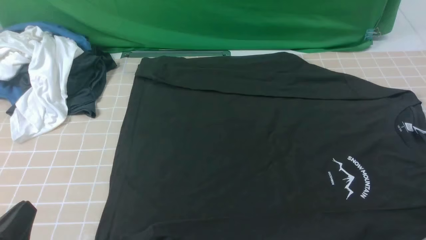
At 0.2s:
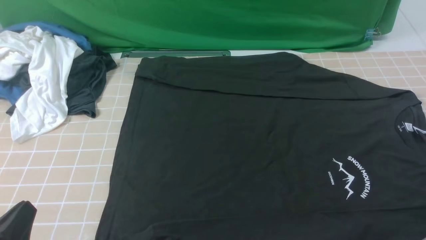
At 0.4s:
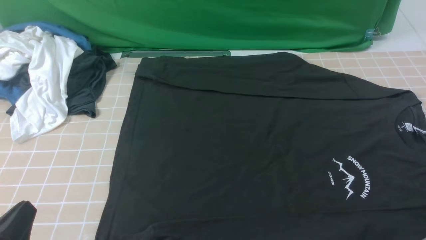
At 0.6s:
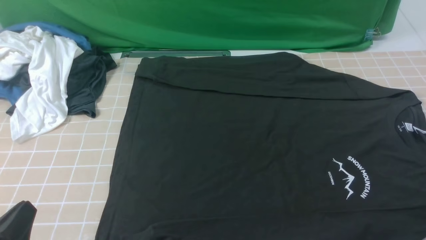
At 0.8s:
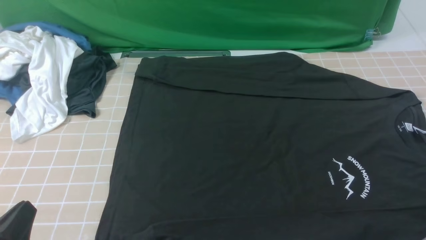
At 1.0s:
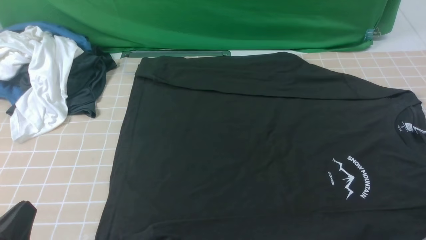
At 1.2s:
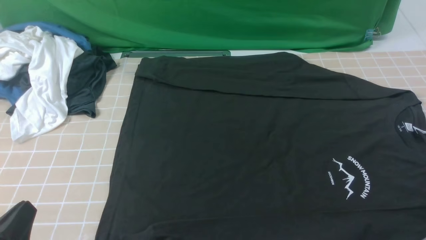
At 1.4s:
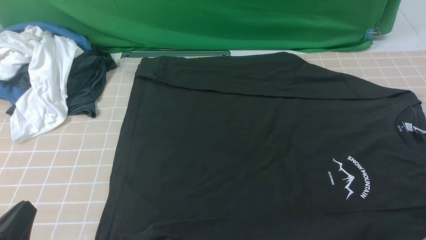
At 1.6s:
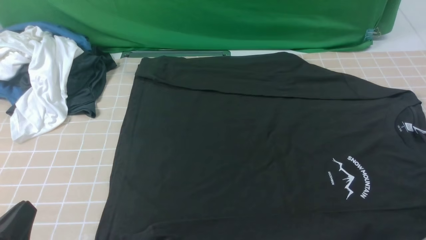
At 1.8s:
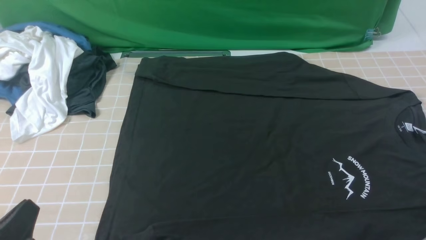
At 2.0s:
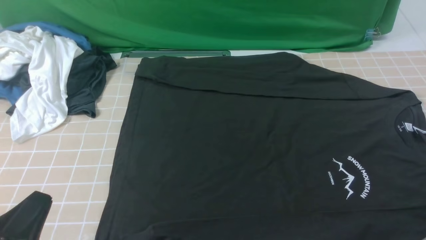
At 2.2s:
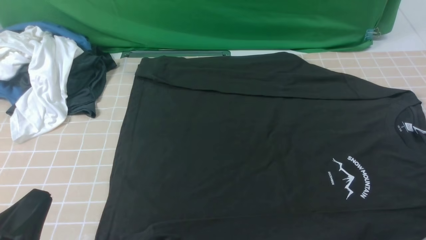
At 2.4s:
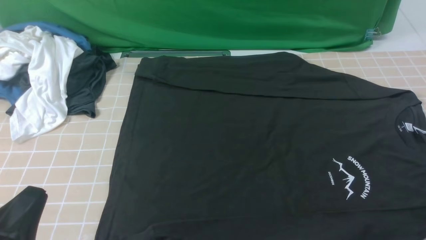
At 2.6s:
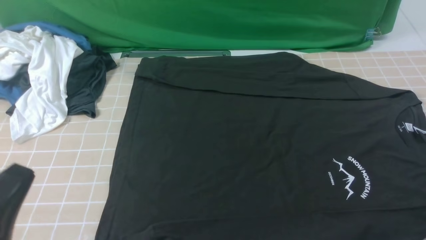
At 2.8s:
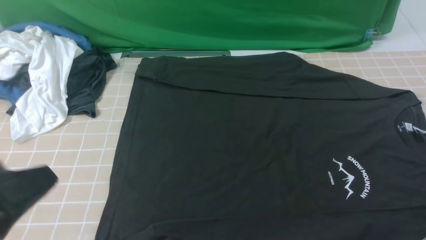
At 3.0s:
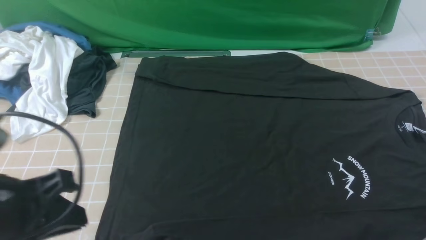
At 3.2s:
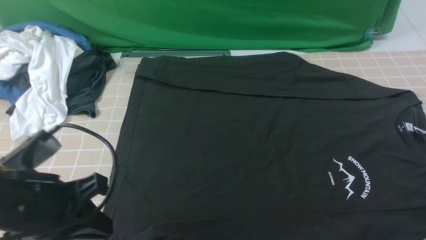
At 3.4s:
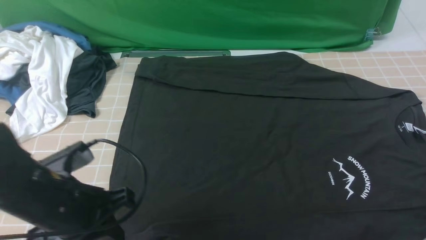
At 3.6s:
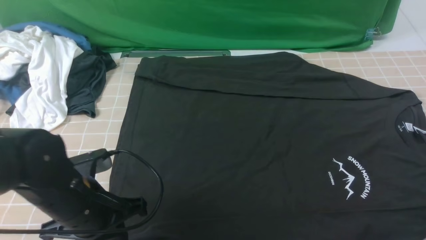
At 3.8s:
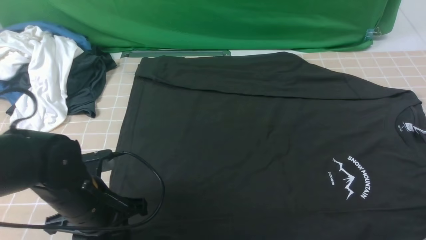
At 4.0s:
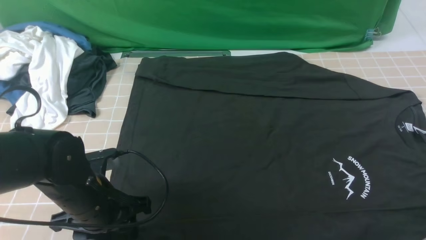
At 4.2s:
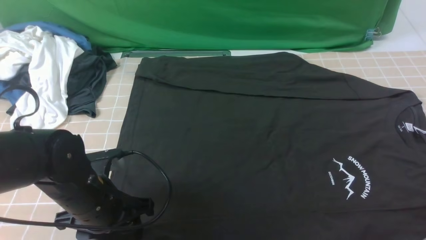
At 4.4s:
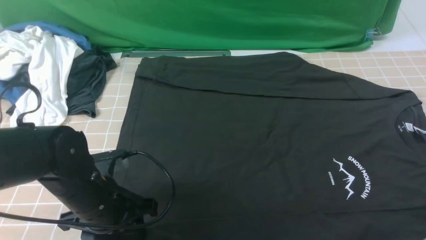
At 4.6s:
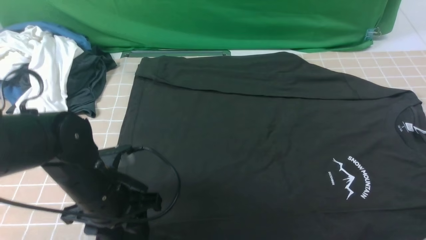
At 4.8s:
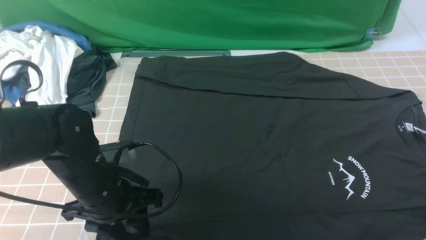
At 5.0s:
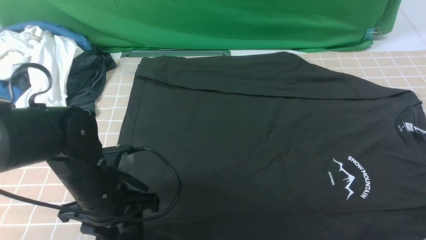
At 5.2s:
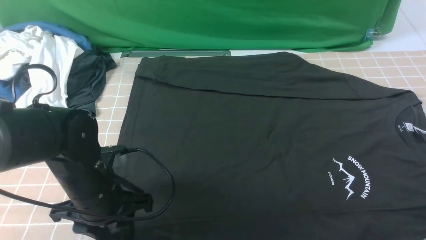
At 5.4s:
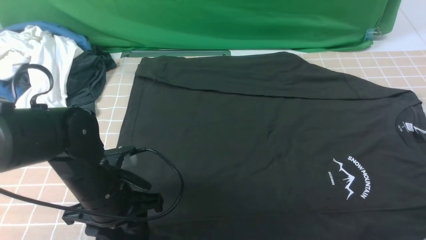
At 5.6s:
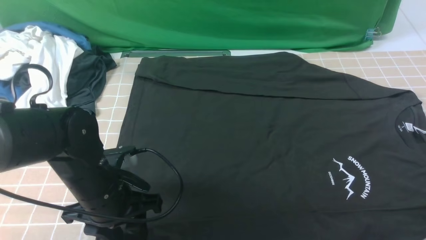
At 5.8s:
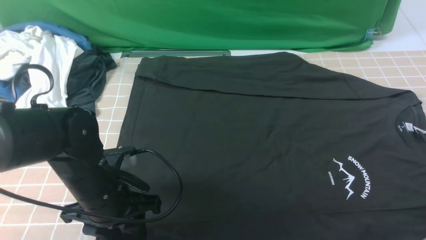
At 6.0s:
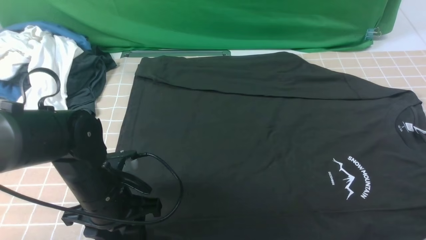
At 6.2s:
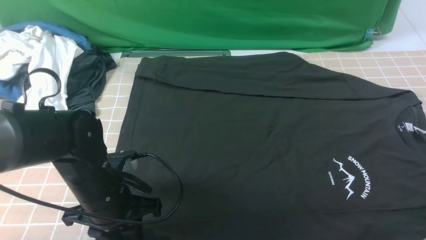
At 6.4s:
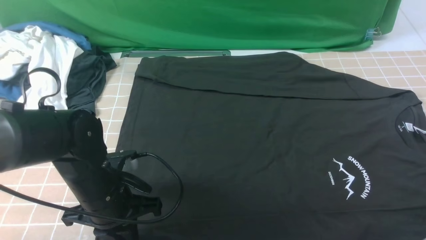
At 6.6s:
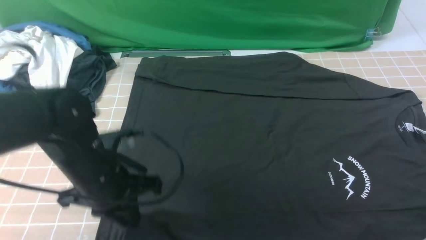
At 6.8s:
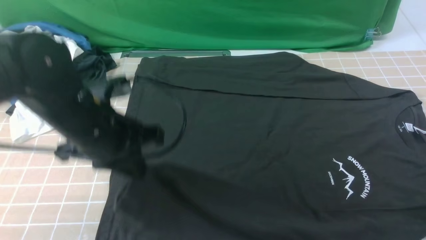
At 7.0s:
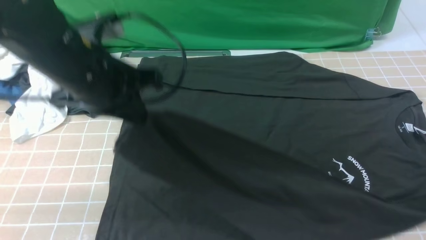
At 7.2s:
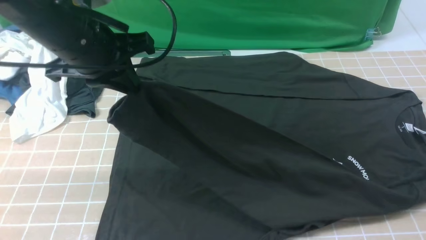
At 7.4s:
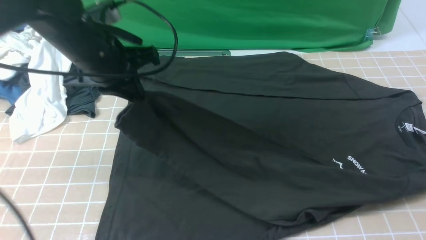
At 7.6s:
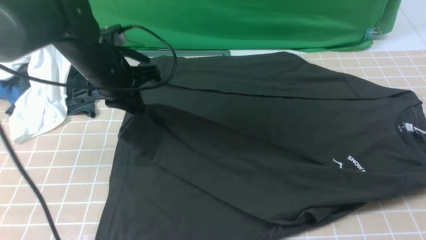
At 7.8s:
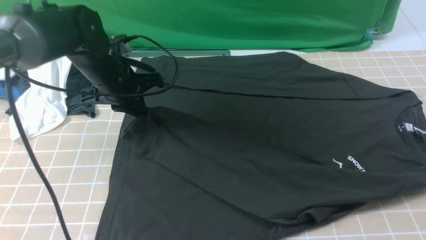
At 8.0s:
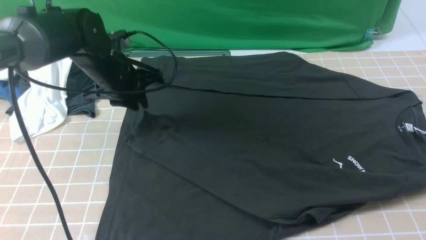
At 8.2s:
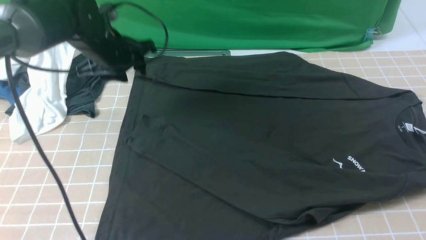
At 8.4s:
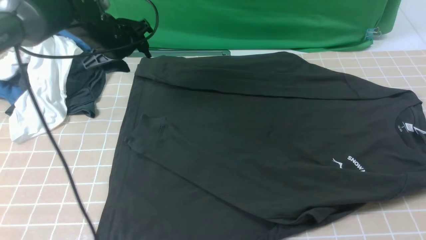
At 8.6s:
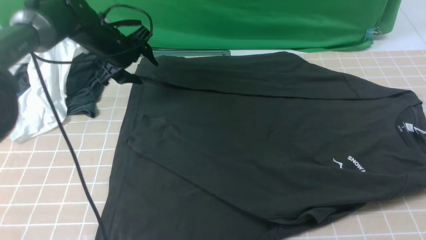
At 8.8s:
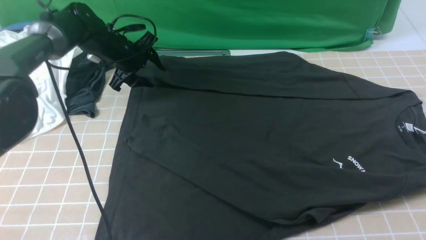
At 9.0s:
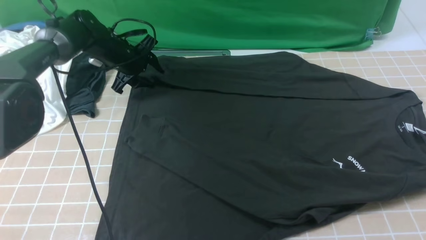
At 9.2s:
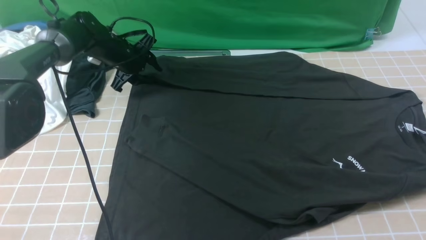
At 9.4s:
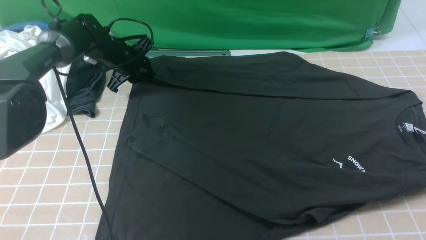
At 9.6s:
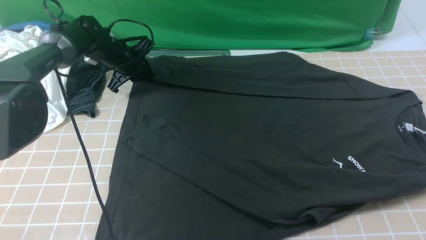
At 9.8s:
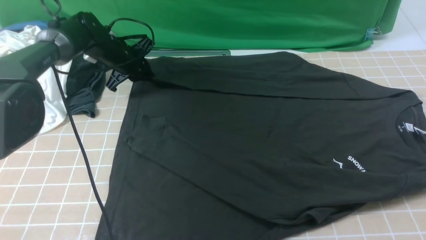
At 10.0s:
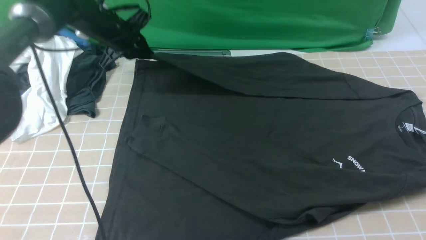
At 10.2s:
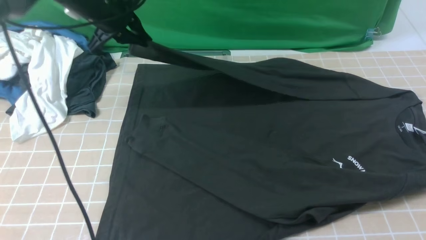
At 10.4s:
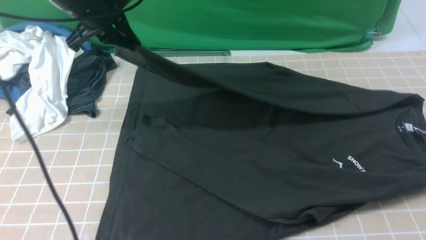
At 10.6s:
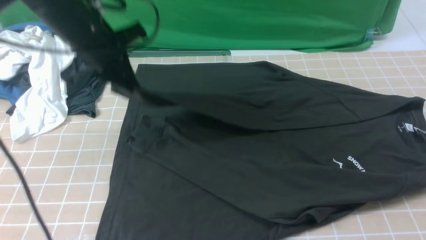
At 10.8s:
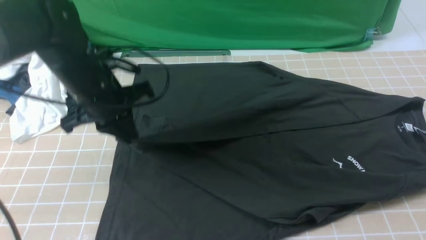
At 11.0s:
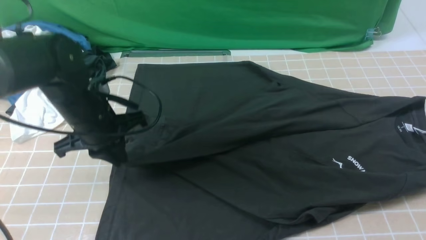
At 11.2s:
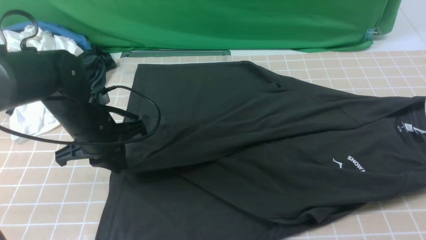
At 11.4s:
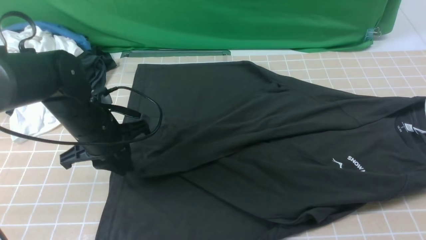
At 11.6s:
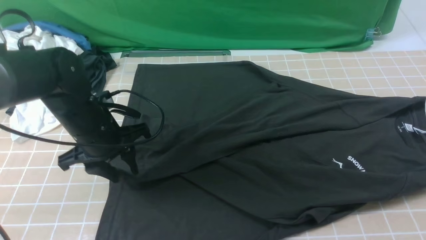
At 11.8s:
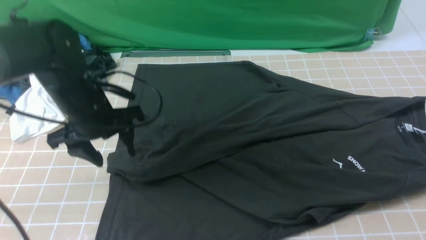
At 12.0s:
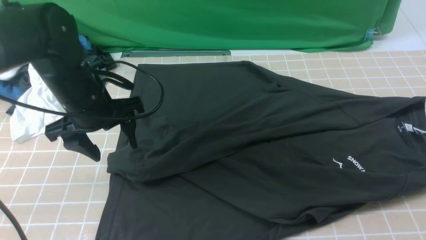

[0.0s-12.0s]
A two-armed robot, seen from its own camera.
Step, 0.0s to 6.4s: use the left arm to clamp the cuff closest to it.
Step, 6.6s to 8.0s: use the left arm to drag and place the cuff at the centered position on the left edge of the fabric.
Step, 8.2s to 9.8s: use the left arm to clamp the cuff farthest from it.
Step, 10.0s to 11.6s: use the left arm to drag and drop the cuff onto the cuff closest to the left arm.
0.0s to 1.6s: Neither gripper changes place.
1.6s to 3.0s: The left gripper shifts roughly 10 cm upward and forward.
3.0s to 4.4s: The left gripper moves downward, forward and to the right, roughly 15 cm, and opens up.
4.4s to 6.0s: The grippers make only small movements.
6.0s to 7.6s: The left gripper shifts approximately 20 cm forward and upward, and closes its fingers.
7.6s to 9.0s: The left gripper travels forward and downward by roughly 15 cm, and opens.
9.0s to 10.4s: The left gripper travels upward and backward by roughly 20 cm, and closes its fingers.
10.4s to 12.0s: The left gripper is displaced backward and downward by some 15 cm, and opens up.

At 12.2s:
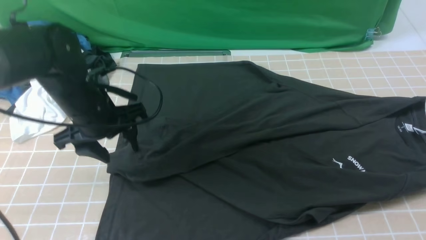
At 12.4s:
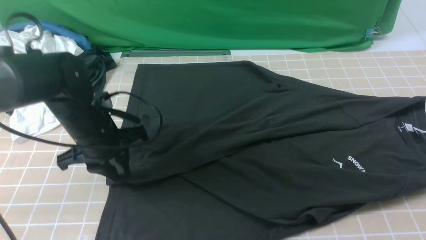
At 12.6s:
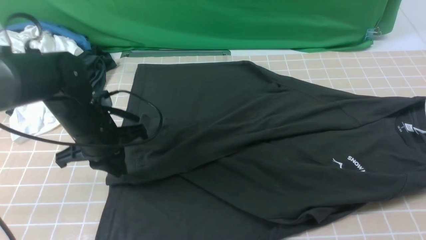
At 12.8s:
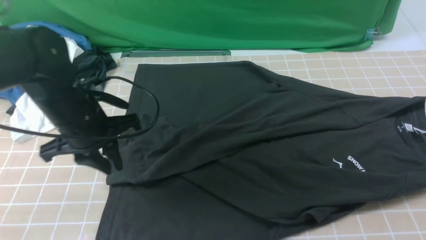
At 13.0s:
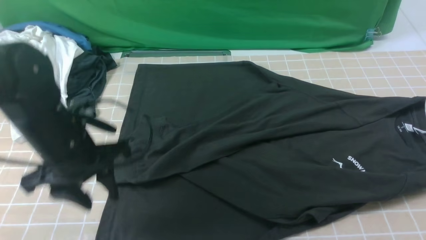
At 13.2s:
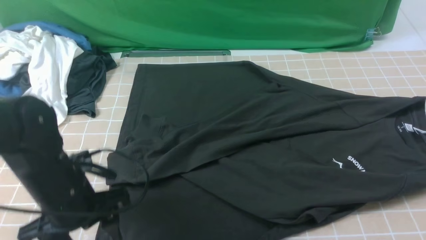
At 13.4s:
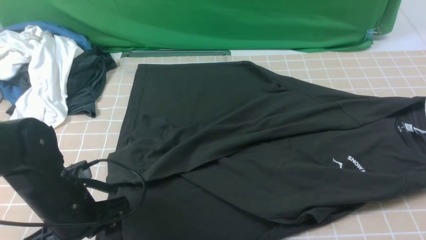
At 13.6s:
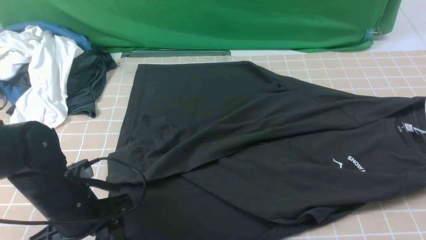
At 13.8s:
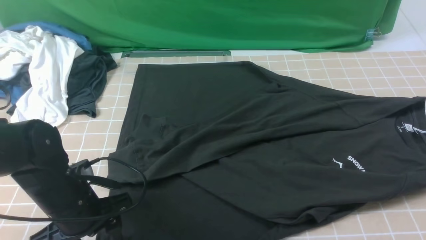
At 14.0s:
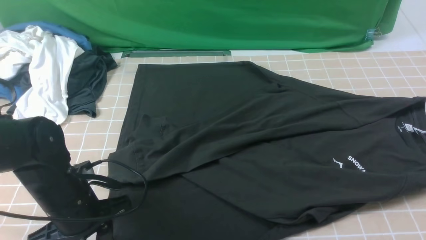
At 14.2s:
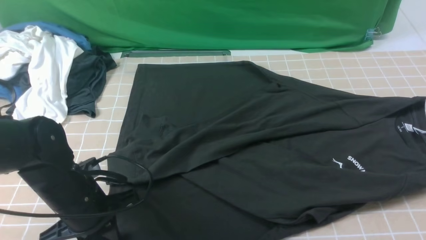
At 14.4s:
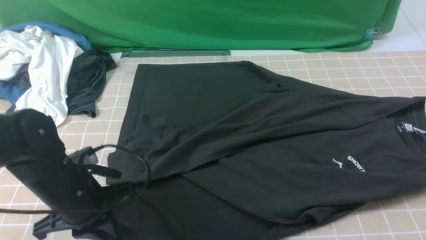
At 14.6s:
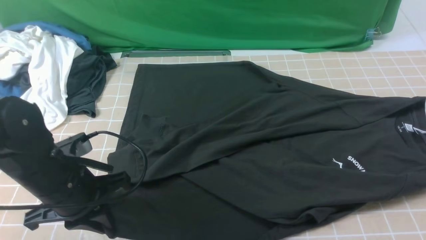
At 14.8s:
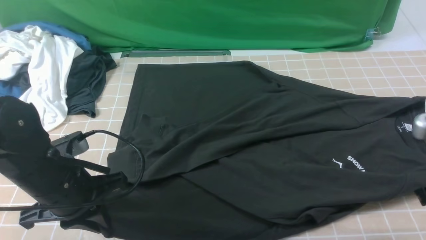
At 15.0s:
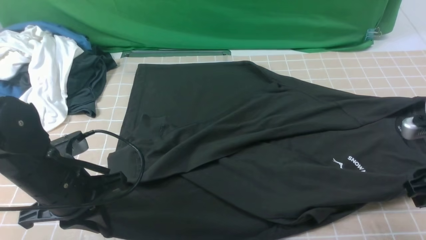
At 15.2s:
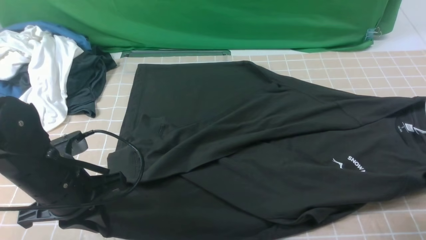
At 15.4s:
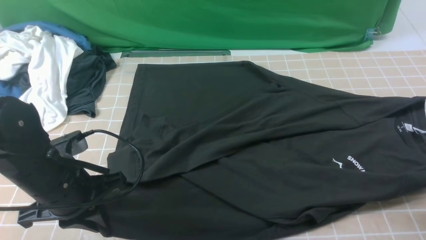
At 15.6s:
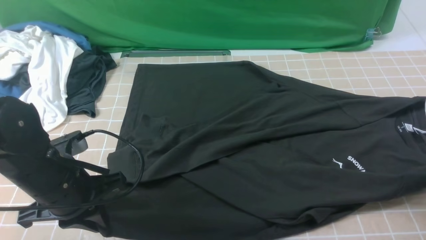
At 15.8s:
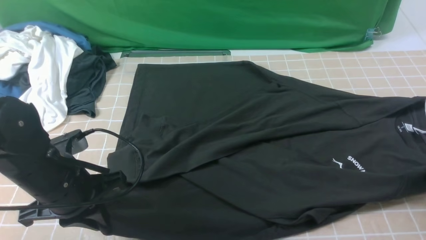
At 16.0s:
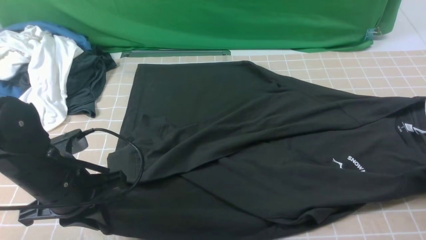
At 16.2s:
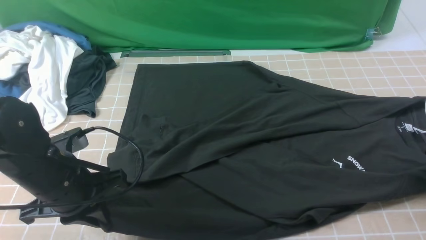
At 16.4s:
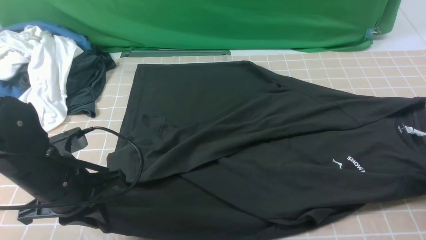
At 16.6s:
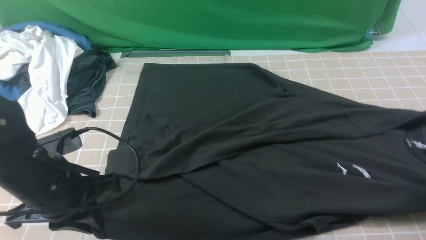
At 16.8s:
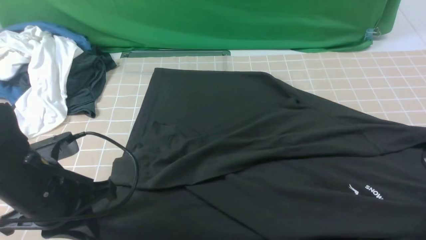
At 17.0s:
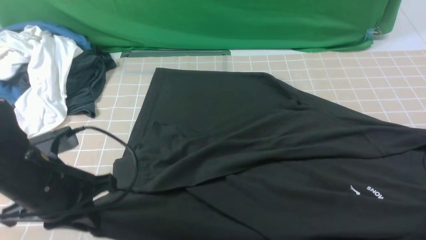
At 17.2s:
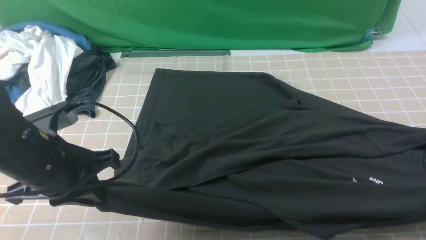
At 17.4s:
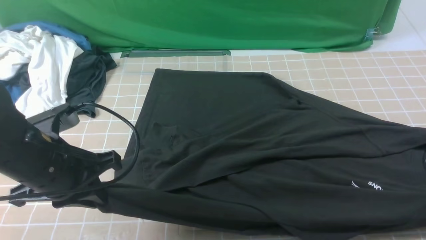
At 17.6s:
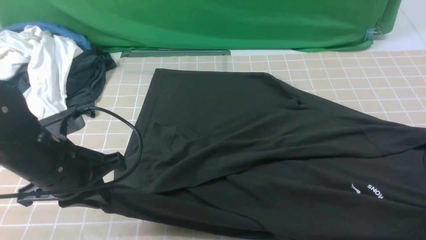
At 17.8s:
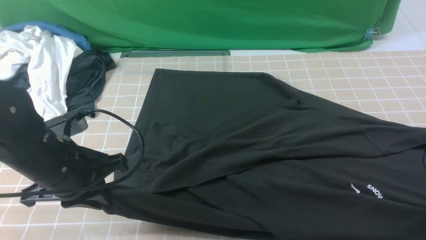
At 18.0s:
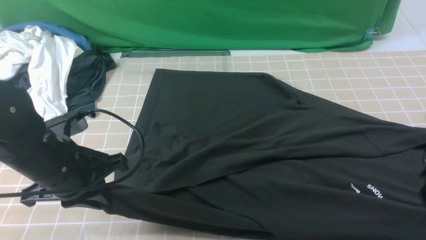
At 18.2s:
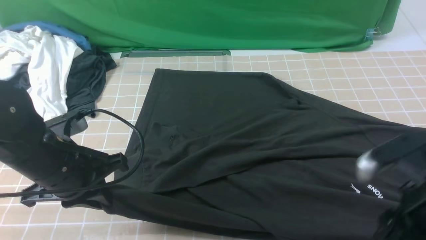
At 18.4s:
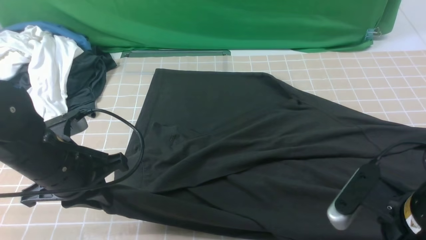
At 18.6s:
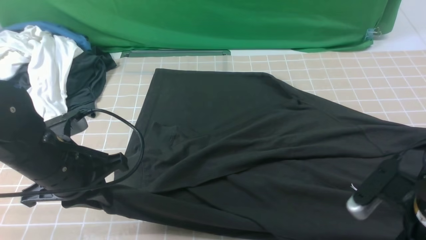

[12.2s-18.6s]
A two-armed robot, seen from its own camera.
Step, 12.2s to 17.0s: use both arms simultaneously to clamp the lower edge of the clothing fabric.
12.2s to 13.8s: The left gripper goes some 15 cm backward and downward, and closes, then opens again.
13.8s to 15.4s: The left gripper shifts some 5 cm upward, and closes; the right gripper is displaced downward, to the right and forward by approximately 20 cm, and opens its fingers.
15.4s to 17.0s: The right gripper closes its fingers.
17.0s to 18.6s: The right gripper shifts approximately 15 cm to the left, and opens.
